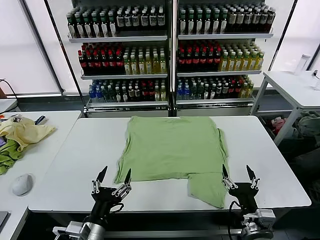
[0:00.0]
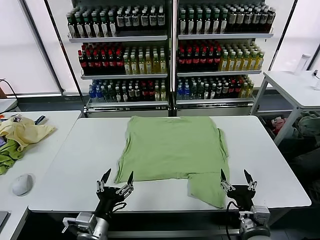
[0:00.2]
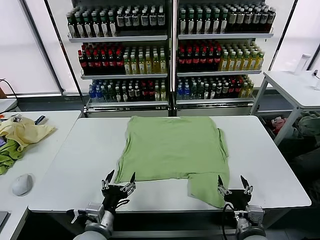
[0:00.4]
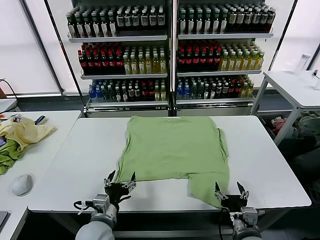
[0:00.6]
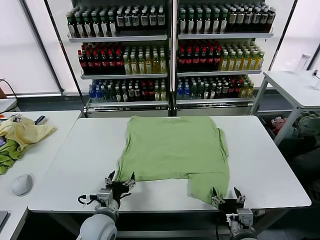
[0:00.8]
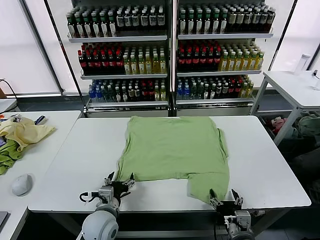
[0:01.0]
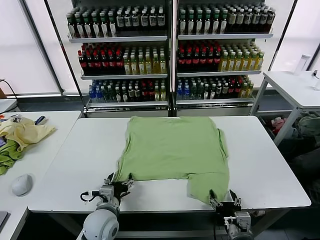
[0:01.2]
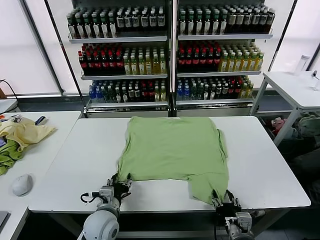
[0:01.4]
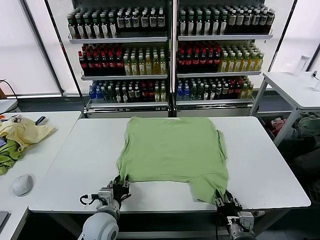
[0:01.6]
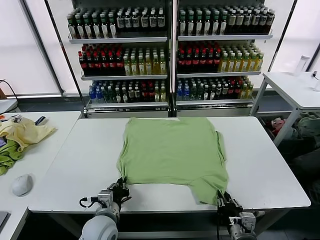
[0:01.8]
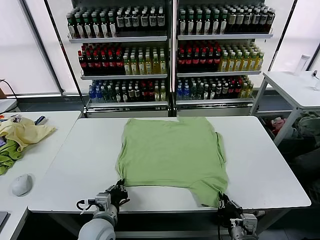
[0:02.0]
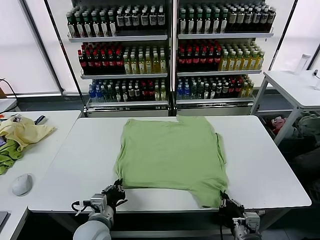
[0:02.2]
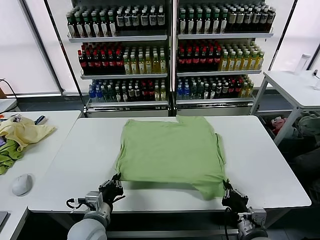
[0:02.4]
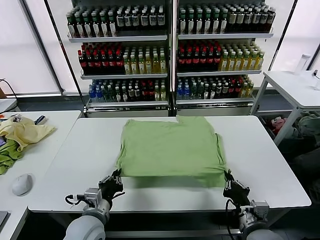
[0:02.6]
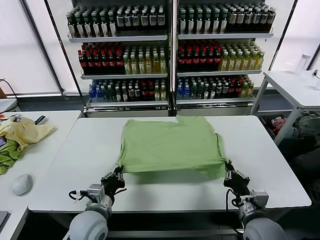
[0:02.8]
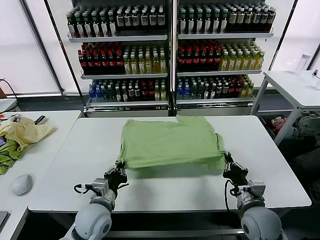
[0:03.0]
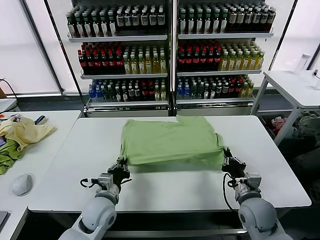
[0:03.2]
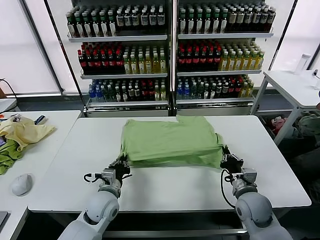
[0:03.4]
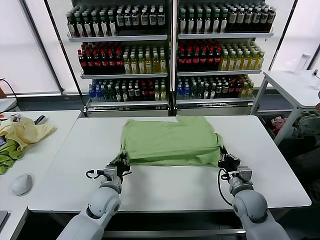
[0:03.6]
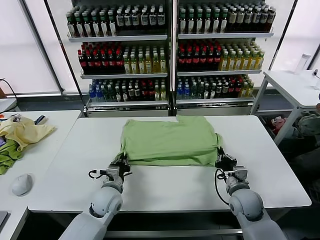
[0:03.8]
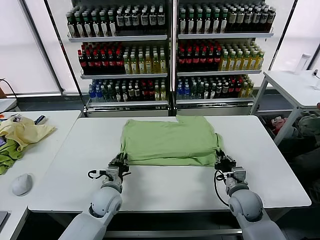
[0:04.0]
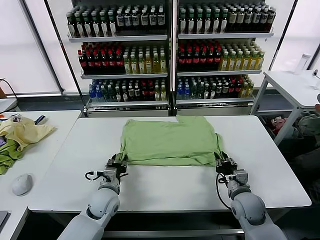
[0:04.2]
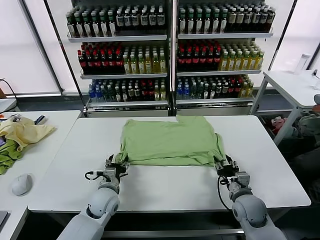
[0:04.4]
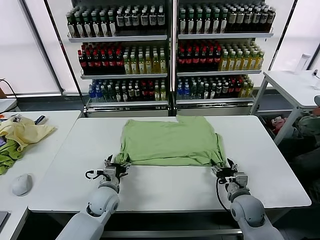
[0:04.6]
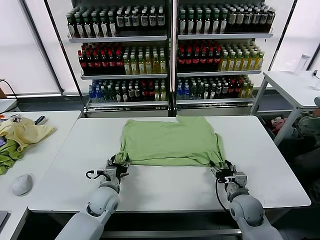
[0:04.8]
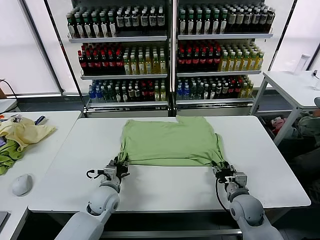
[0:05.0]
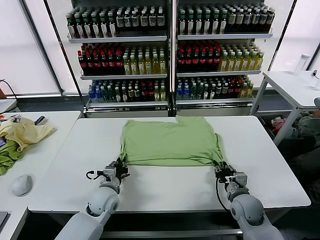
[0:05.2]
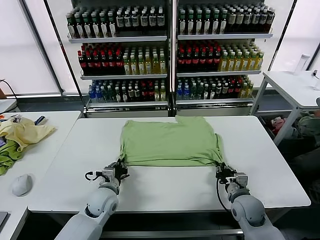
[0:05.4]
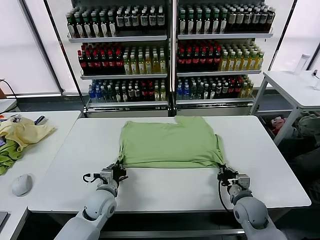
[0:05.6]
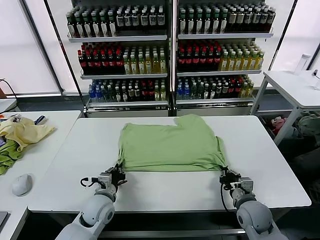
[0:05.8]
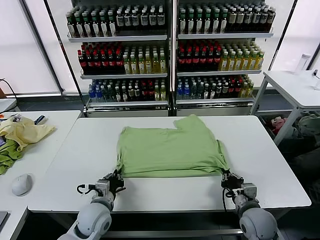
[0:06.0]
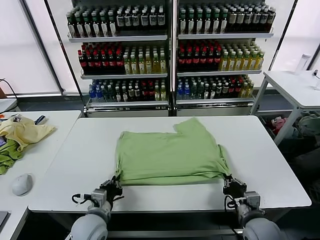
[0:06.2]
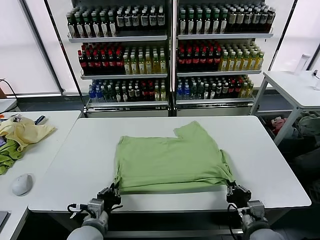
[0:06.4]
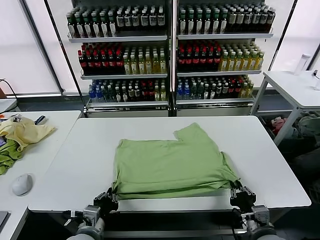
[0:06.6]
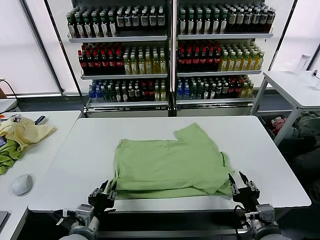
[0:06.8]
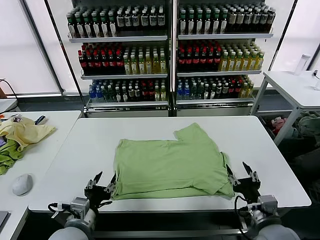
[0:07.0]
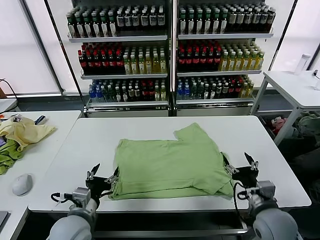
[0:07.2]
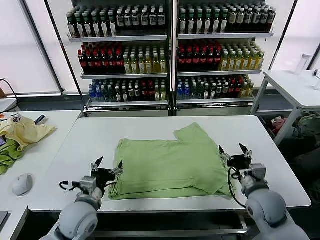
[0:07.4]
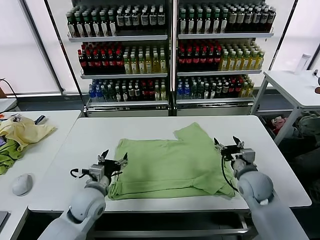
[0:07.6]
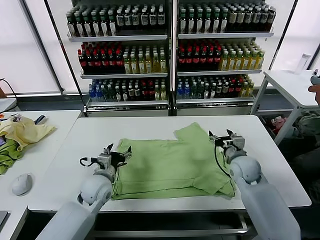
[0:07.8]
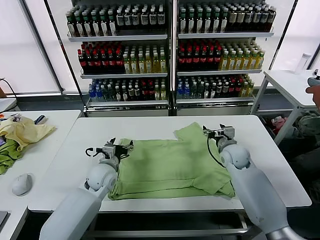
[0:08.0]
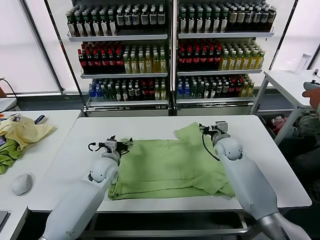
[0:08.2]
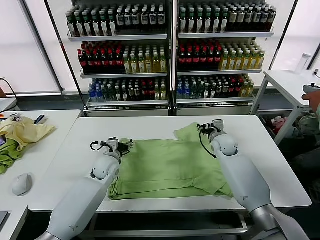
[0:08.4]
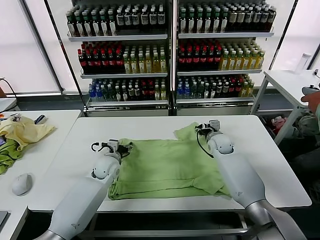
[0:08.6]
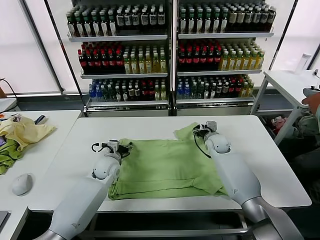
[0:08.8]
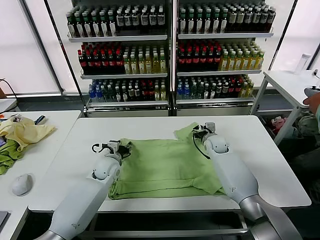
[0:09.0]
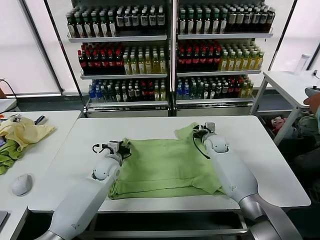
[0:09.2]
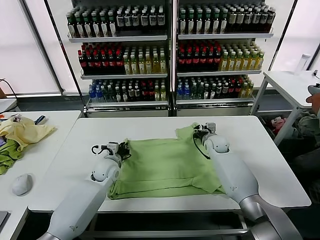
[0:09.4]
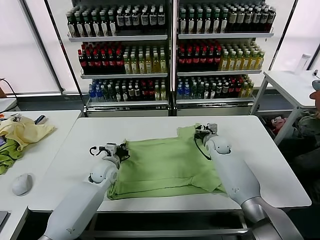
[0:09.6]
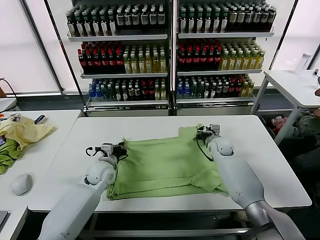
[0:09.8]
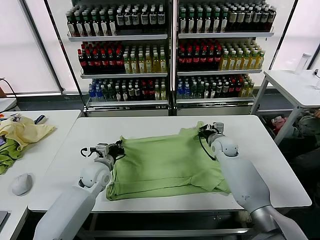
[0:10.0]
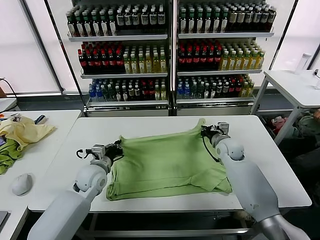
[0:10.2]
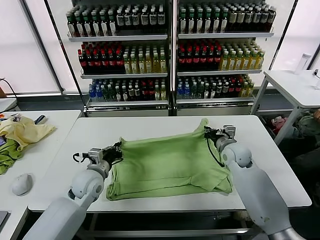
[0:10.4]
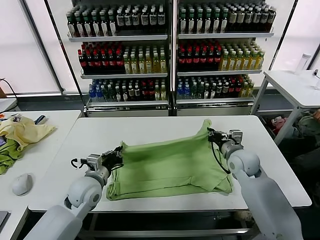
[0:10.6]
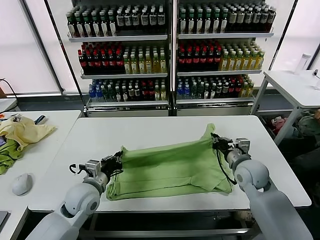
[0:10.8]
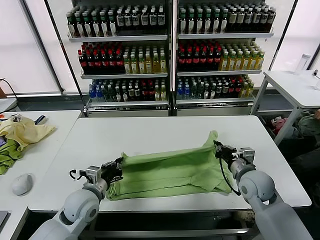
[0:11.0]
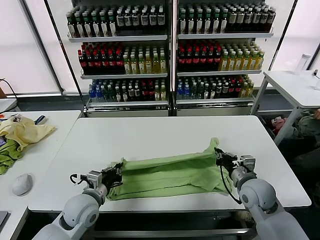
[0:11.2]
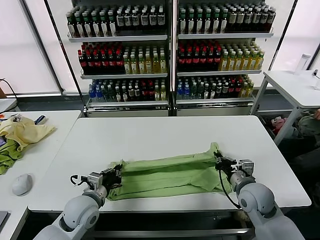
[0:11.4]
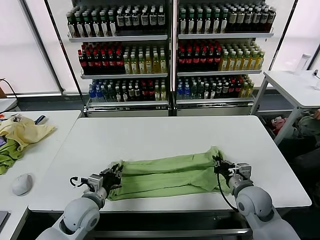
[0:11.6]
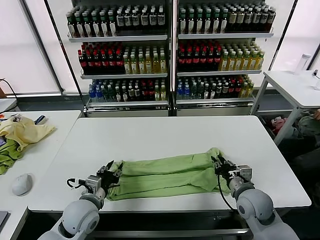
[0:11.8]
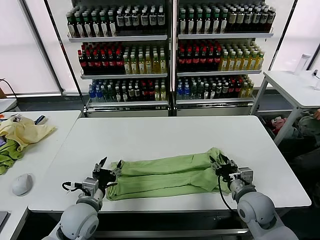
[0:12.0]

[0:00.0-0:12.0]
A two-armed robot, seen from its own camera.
Task of the whole recording: fold and organize the clothes.
Step, 0:00.0 to 0:02.0: use both grippers simultaneously to clamp the lower edge of the clothing fabric.
Step, 0:02.2 to 0:04.4: use both grippers to drag the lower edge of the fabric forward and fold it over the upper edge.
Step, 0:04.6 to 0:06.8: Drag the clothes downward with both gripper.
Step, 0:07.0 to 0:09.4: use both grippers simultaneously to clamp the upper edge of the clothing fabric.
Step, 0:09.6 to 0:11.8: use both grippers to drag the upper edge of the fabric backward and fold it over the lower edge.
0:01.6 to 0:03.0: The right gripper travels forward by about 10 cm, and closes; the left gripper closes up.
0:03.0 to 0:04.4: The right gripper travels downward by about 5 cm, and opens up. The left gripper is displaced forward and downward by approximately 10 cm, and opens up.
0:04.4 to 0:06.0: The grippers both shift backward by approximately 5 cm. The left gripper closes up, while the right gripper closes its fingers.
0:06.0 to 0:07.6: The left gripper travels upward by approximately 5 cm, reaches approximately 10 cm backward, then returns, and opens up; the right gripper shifts some 15 cm forward and upward, and opens its fingers.
0:07.6 to 0:09.0: The two grippers go about 15 cm forward. The right gripper closes.
0:09.0 to 0:10.4: The right gripper travels backward and upward by roughly 10 cm, and closes its fingers. Meanwhile the left gripper goes roughly 10 cm backward, and closes.
0:10.4 to 0:12.0: The left gripper heads backward, covering about 10 cm, and opens its fingers. Meanwhile the right gripper shifts some 15 cm backward, and opens.

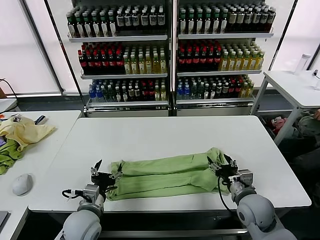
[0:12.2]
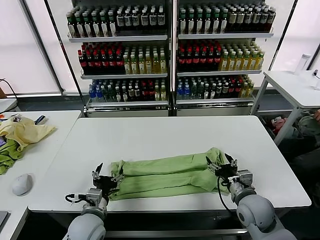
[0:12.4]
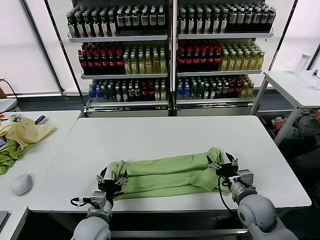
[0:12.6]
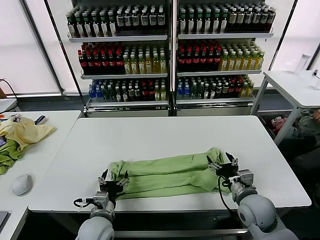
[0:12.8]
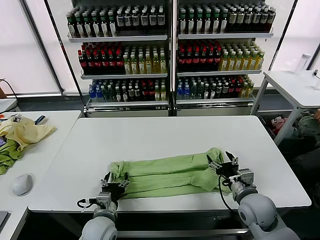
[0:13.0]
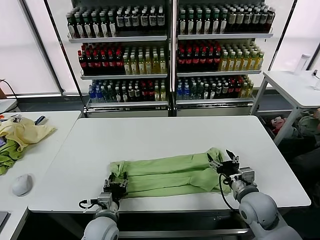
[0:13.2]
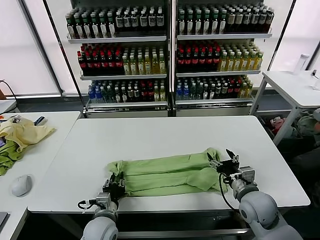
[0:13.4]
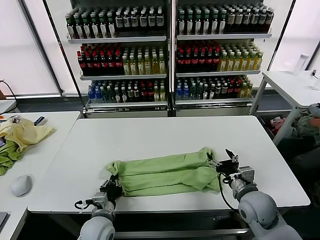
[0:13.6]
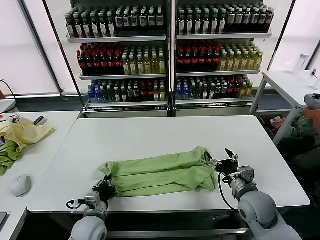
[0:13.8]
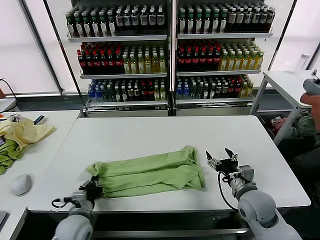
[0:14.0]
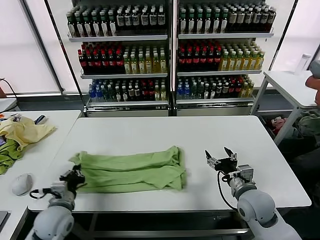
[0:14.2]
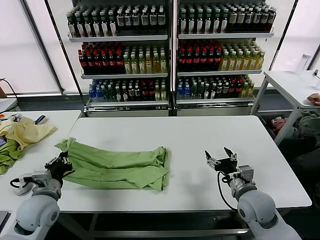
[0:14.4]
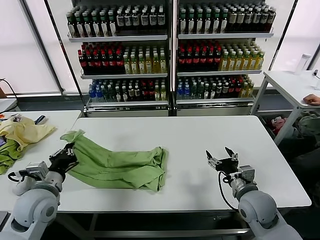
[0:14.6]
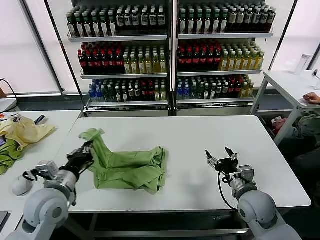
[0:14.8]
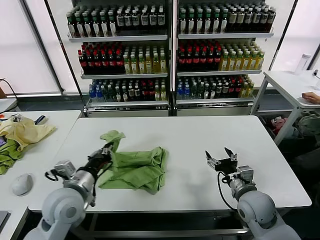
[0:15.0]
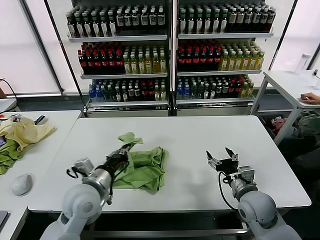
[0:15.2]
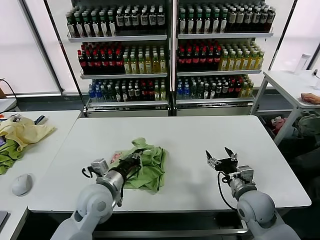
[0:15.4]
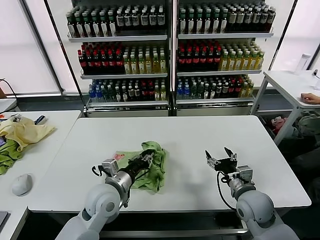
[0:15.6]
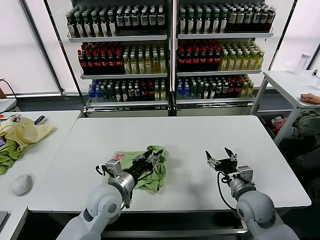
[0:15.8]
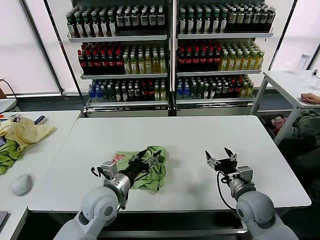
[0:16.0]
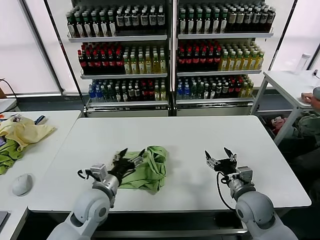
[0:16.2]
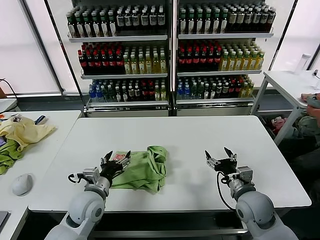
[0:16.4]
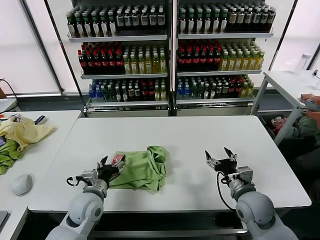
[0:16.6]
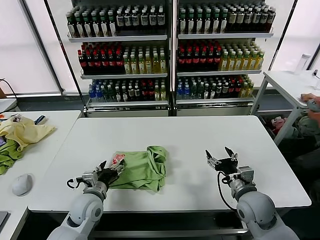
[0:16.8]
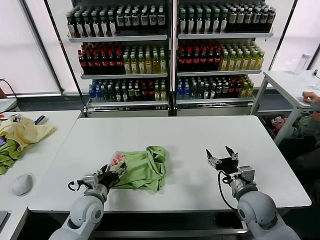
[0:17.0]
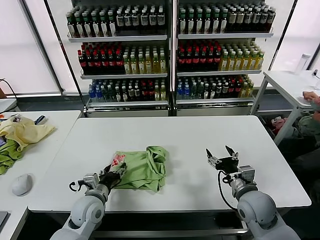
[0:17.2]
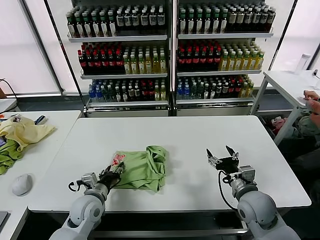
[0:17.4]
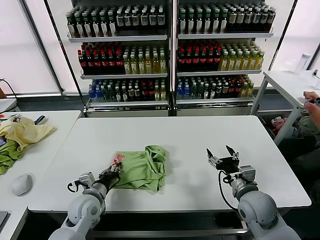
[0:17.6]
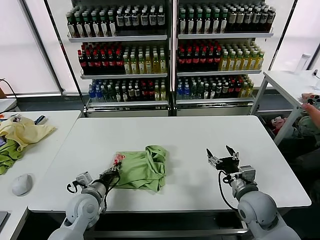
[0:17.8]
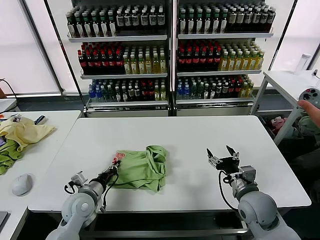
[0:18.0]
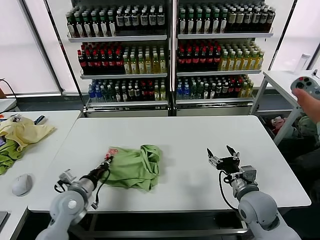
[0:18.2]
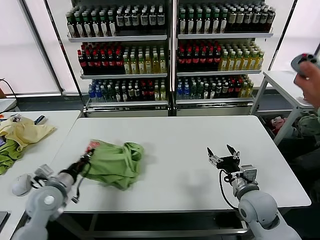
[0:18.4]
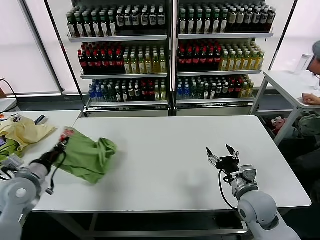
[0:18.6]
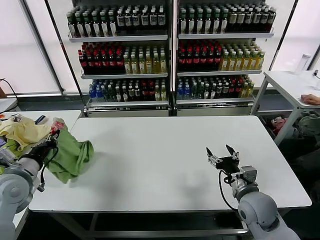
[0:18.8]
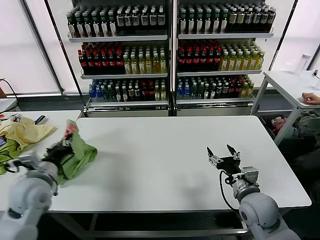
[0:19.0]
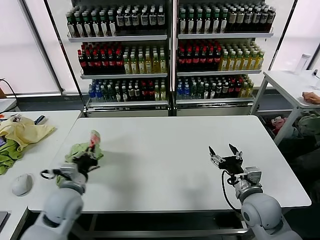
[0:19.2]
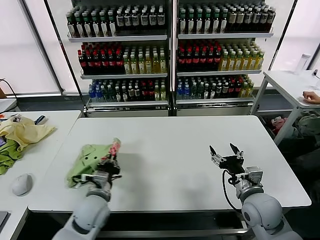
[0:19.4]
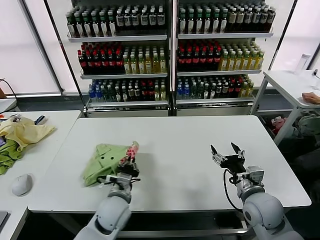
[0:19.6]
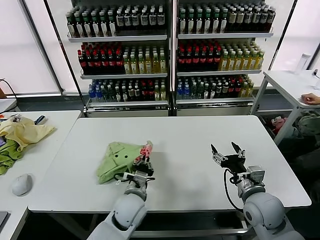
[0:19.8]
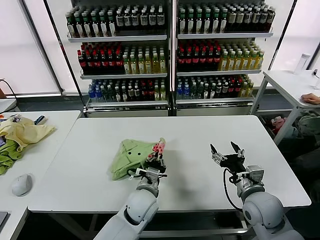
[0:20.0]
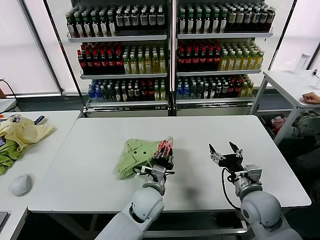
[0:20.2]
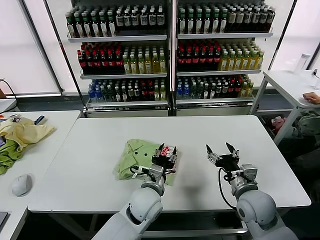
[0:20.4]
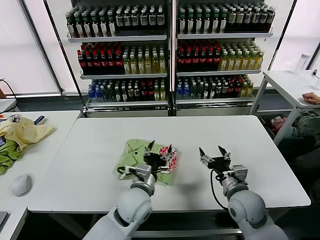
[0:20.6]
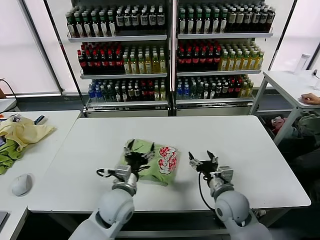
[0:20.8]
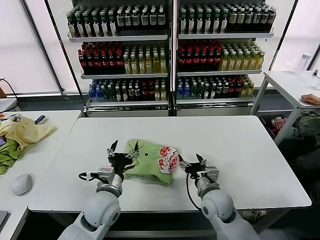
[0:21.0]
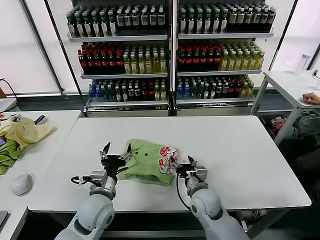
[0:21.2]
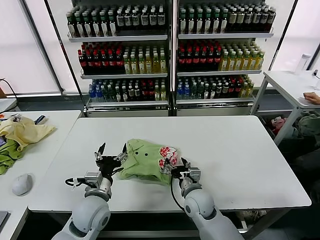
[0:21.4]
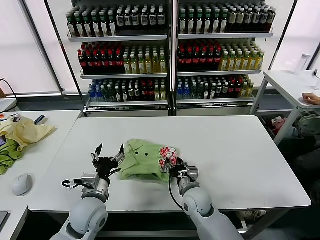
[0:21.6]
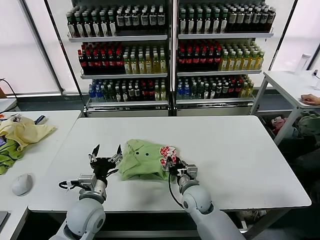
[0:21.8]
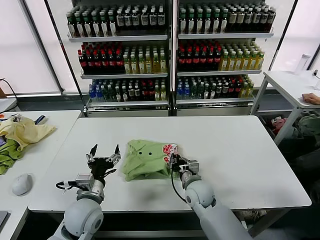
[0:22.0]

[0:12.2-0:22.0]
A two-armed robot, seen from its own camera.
Task of the whole recording: fold and organize the clothes.
Step, 0:12.2 to 0:13.6: use the left gripper to clamp the left edge of the fabric.
Step, 0:13.8 to 0:15.8: use the left gripper to drag the left edge of the fabric to the left and folds it over the right edge.
Step, 0:16.0 to 0:20.2: Flip the folded clothes over with left gripper.
0:12.2 to 0:13.6: The left gripper heads downward, covering roughly 5 cm, and closes its fingers.
0:13.6 to 0:15.0: The left gripper heads upward, covering approximately 15 cm.
0:15.0 to 0:16.4: The left gripper shifts some 10 cm downward, and opens.
0:16.4 to 0:17.8: The left gripper ends up approximately 5 cm from where it was, and closes up.
0:17.8 to 0:19.2: The left gripper travels upward by some 10 cm, and moves approximately 15 cm to the left and comes back.
0:19.2 to 0:20.6: The left gripper shifts approximately 25 cm to the right, and opens.
0:20.6 to 0:22.0: The right gripper shifts approximately 15 cm to the left, downward and forward, and closes its fingers. The left gripper moves to the left, some 15 cm.
